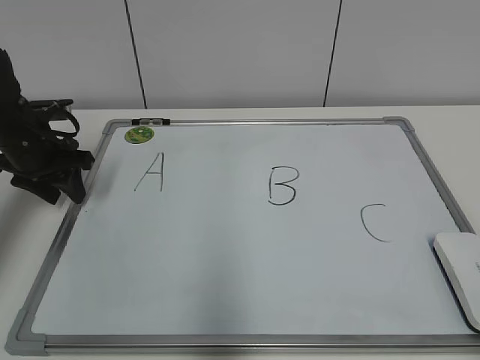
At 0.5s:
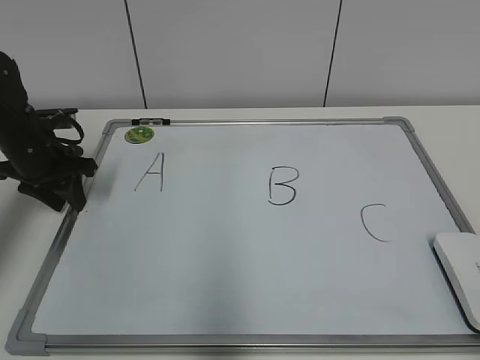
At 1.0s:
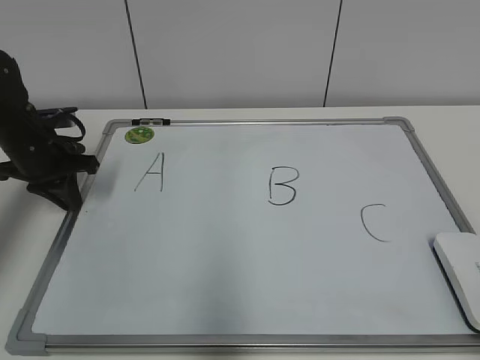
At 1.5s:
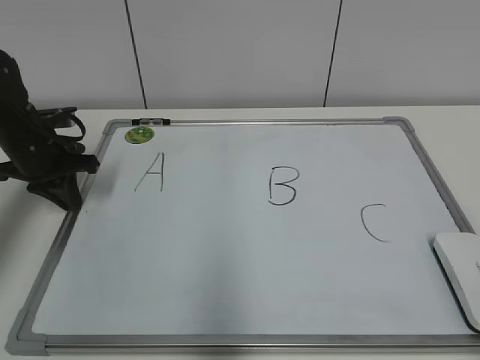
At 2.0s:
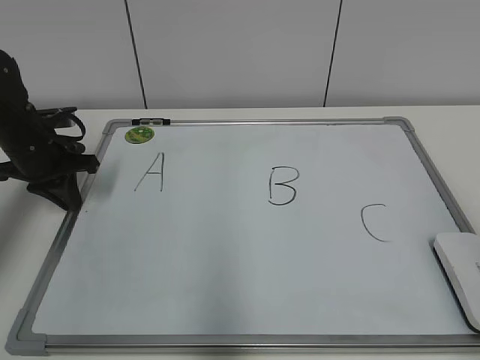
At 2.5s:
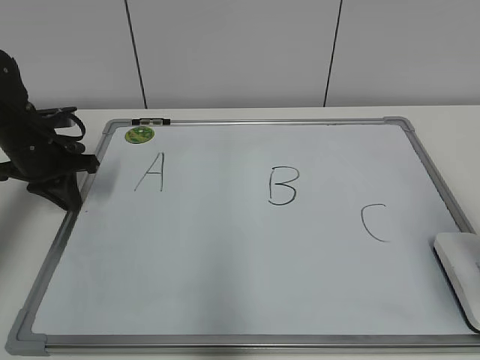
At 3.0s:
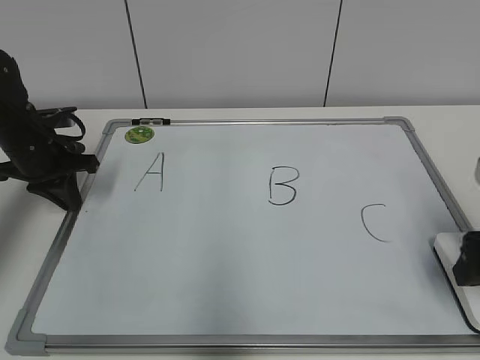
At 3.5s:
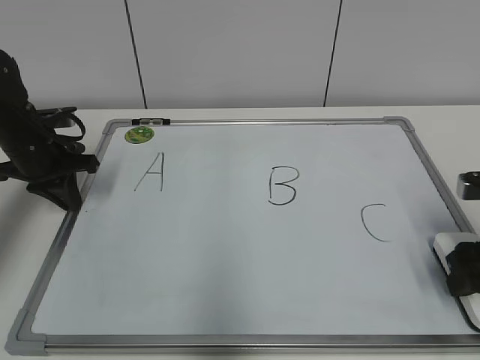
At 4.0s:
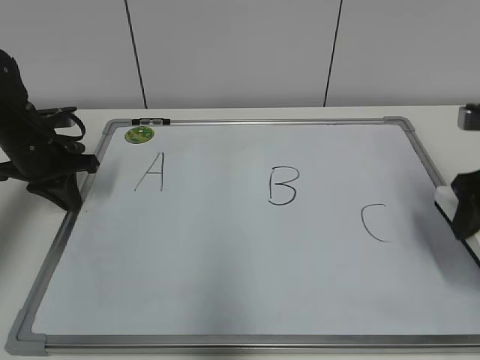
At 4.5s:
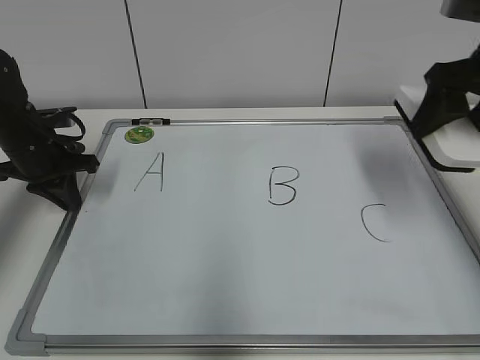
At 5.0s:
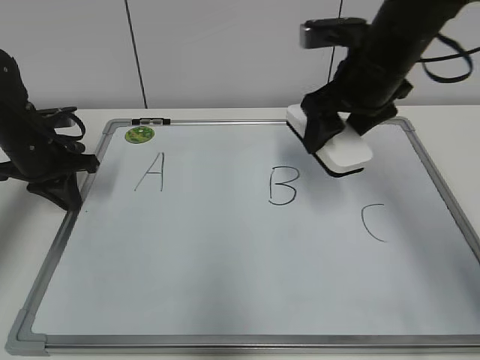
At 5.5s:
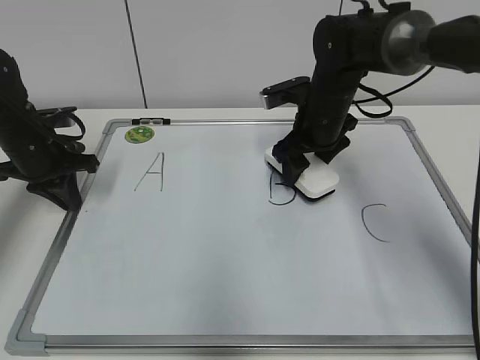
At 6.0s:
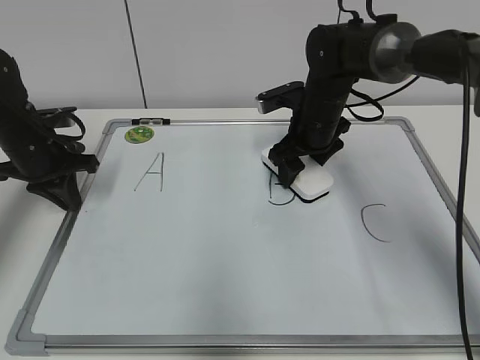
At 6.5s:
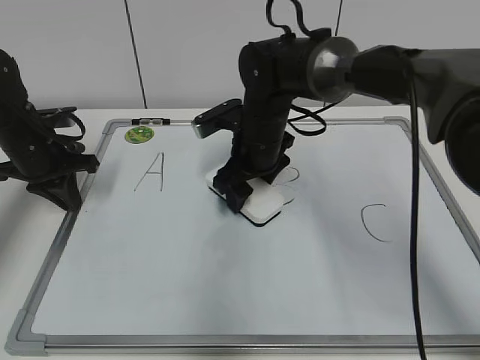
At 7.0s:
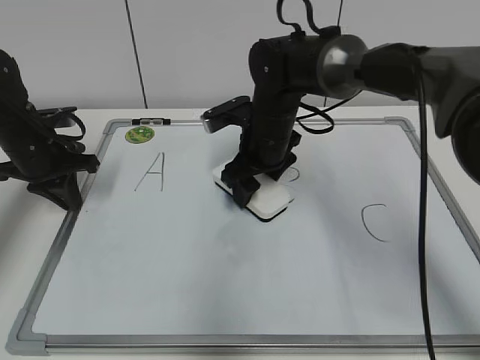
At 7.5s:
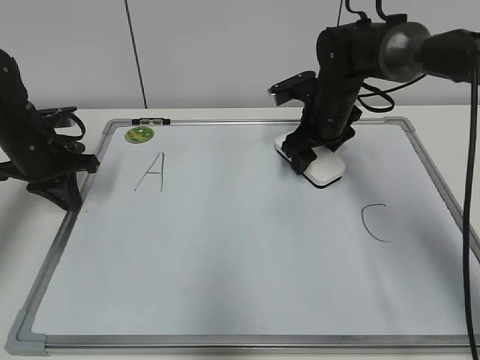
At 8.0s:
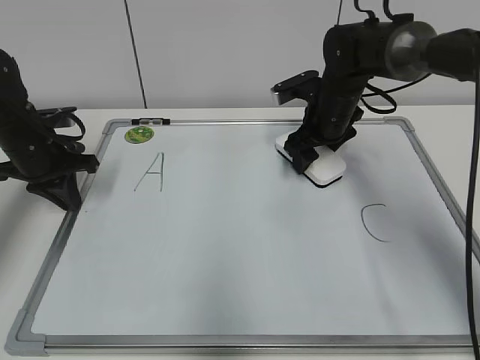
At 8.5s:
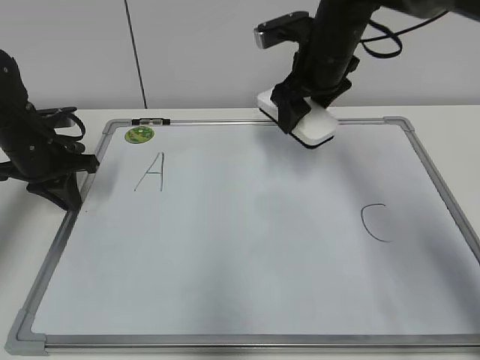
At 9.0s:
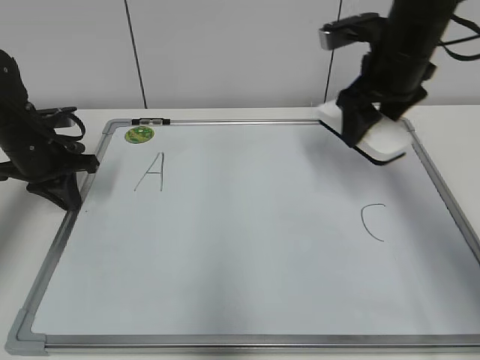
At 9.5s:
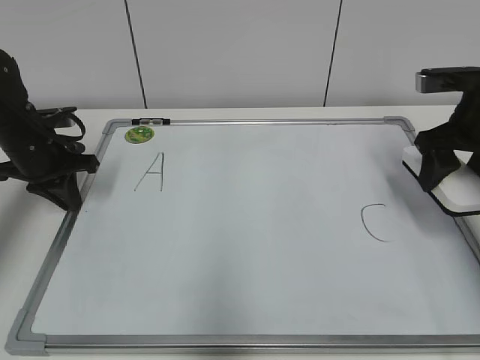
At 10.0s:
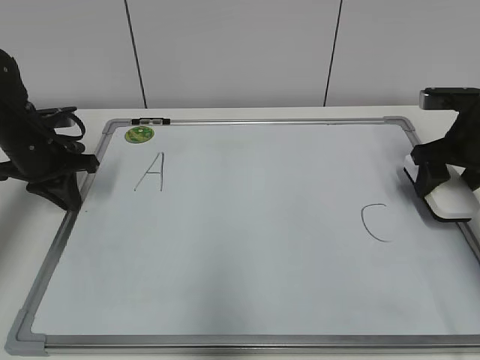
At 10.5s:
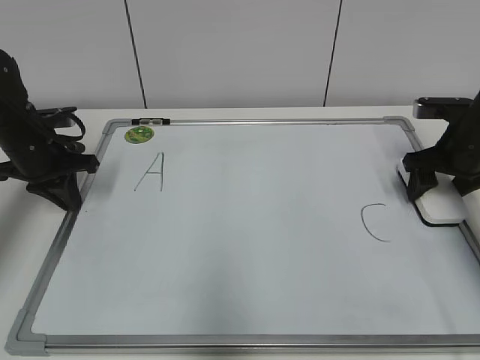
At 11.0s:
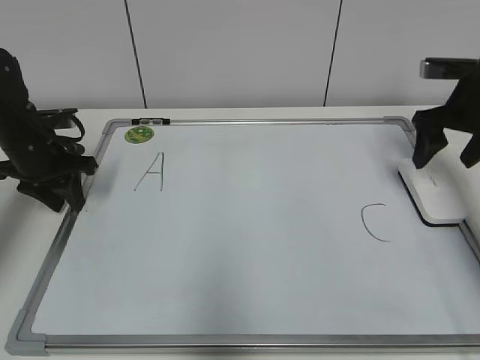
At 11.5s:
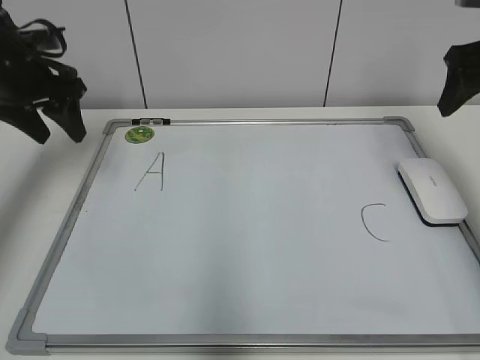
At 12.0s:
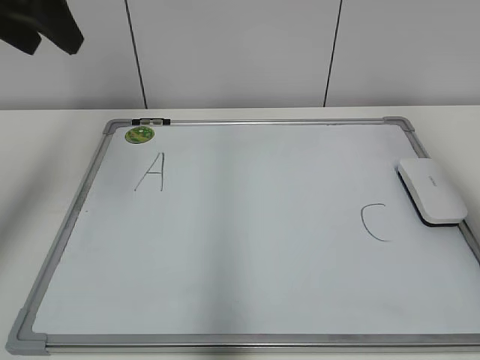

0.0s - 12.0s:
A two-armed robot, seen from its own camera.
Task of the whole recording: pick up the eraser on the blackboard and erase the letter "B".
Step, 2.0s - 3.0s: Grab the eraser with your right hand.
Step, 3.5s - 8.0s: Erase the letter B with your right hand.
Step, 8.5s - 10.5s: Put down the eraser with your right hand.
0.0s - 2.0s: The left gripper closes.
2.0s - 4.0s: The right gripper shifts about 20 cm forward, and closes its fingers.
4.0s - 6.0s: The right gripper goes approximately 25 cm to the left, forward and downward.
6.0s - 8.0s: The right gripper moves about 10 cm to the left and comes back.
8.0s - 10.0s: The right gripper moves to the right and backward, roughly 20 cm.
10.0s - 12.0s: The left gripper travels upward by about 25 cm, and opens its fingers, while the right gripper shifts roughly 25 cm upward and backward, and opens up.

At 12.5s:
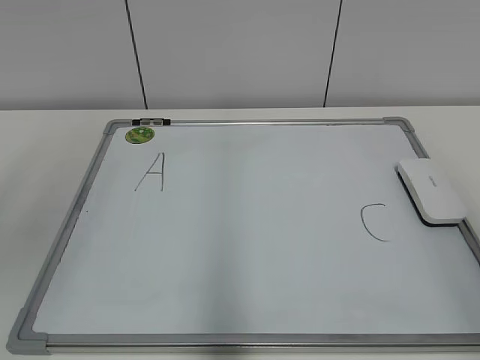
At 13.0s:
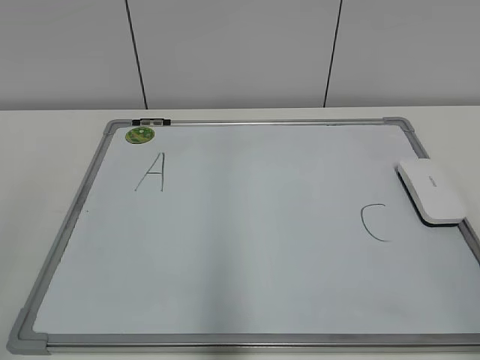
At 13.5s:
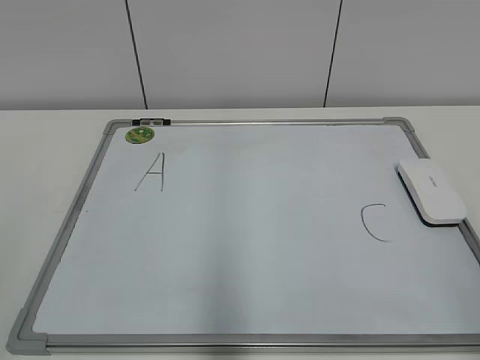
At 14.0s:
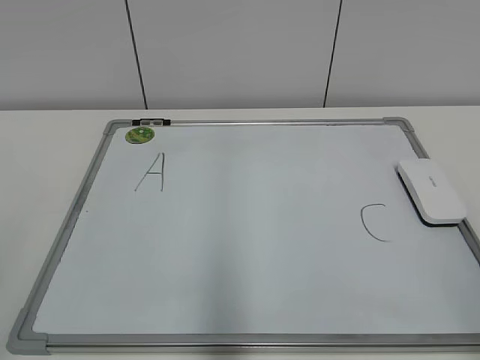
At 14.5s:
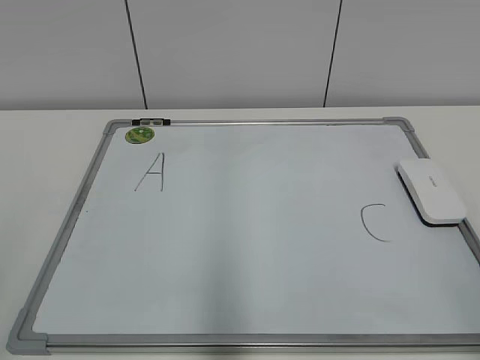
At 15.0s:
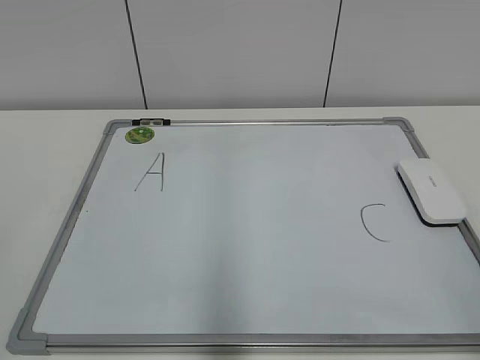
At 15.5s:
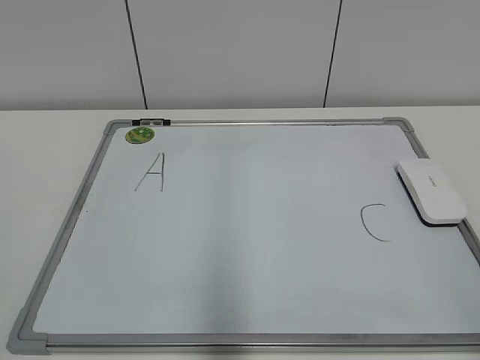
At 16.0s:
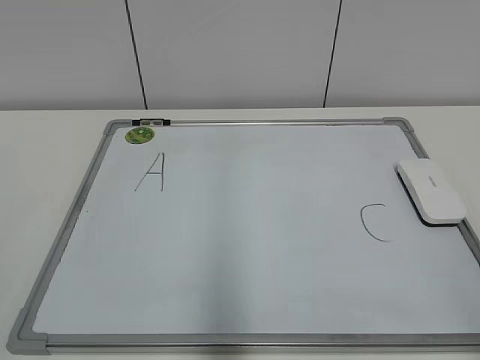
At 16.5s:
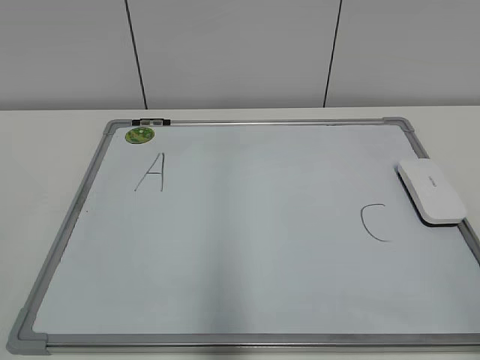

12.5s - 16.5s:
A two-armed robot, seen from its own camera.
Task of the whole recording: pick up the eraser on the blackboard and erase the letter "B".
12.5s - 14.5s: The left gripper travels backward and downward by some 15 cm.
